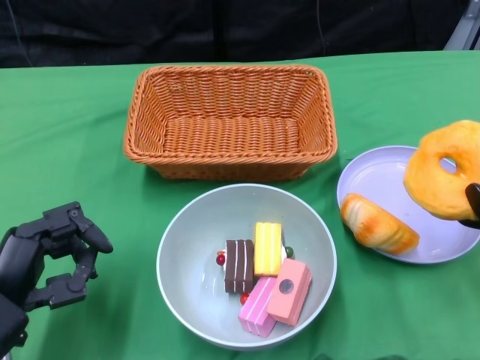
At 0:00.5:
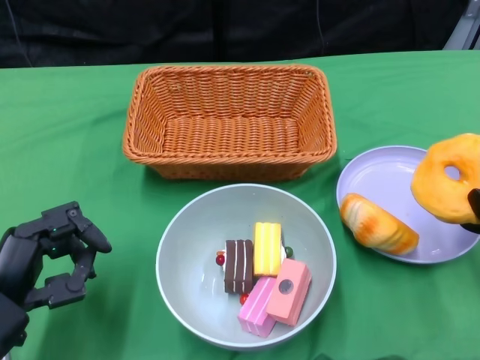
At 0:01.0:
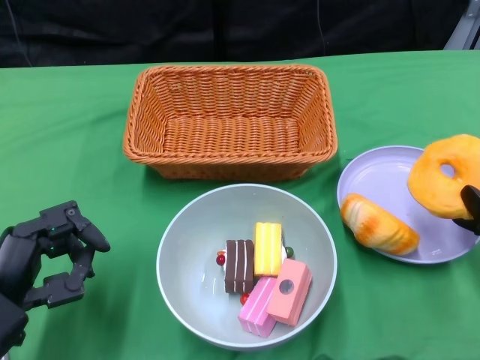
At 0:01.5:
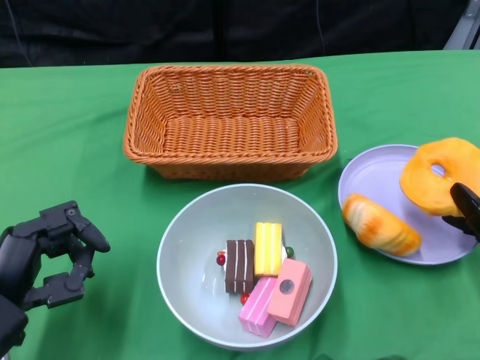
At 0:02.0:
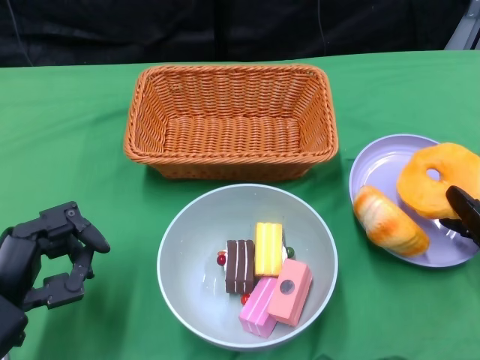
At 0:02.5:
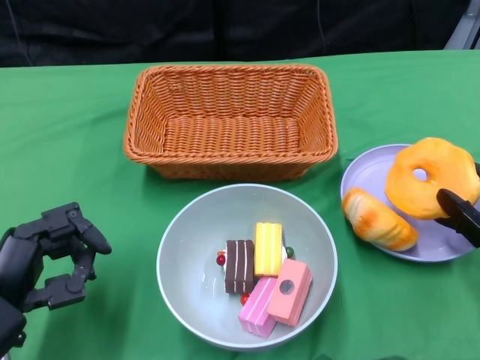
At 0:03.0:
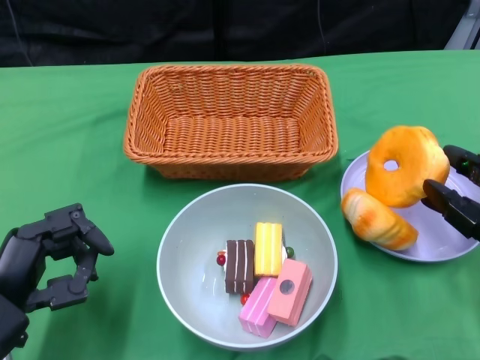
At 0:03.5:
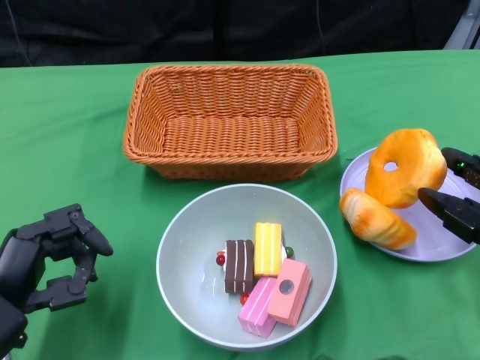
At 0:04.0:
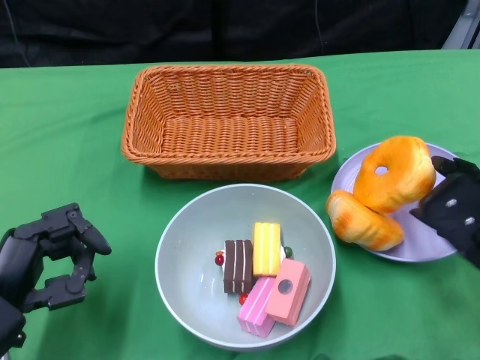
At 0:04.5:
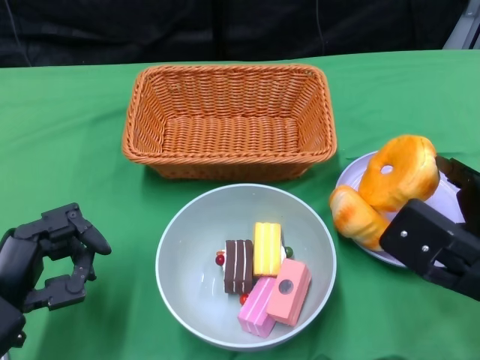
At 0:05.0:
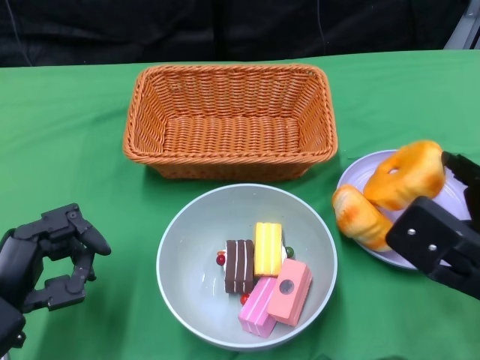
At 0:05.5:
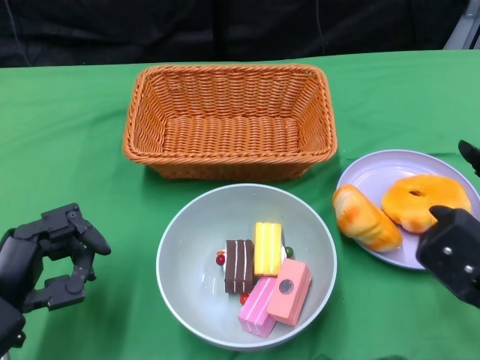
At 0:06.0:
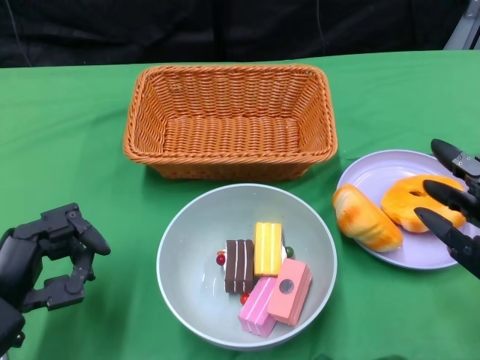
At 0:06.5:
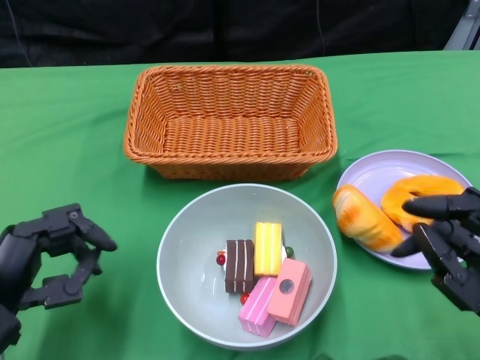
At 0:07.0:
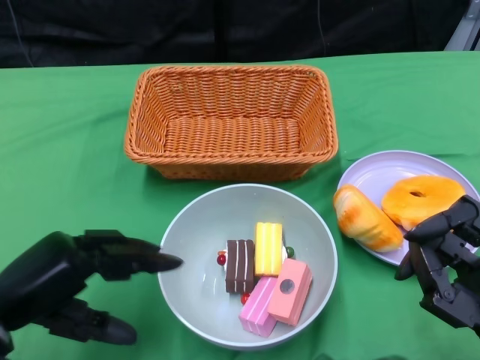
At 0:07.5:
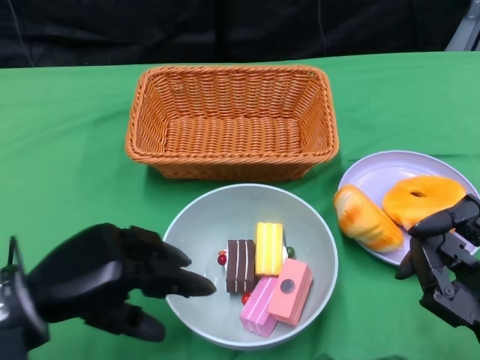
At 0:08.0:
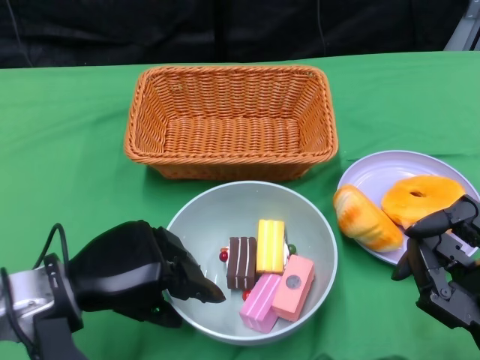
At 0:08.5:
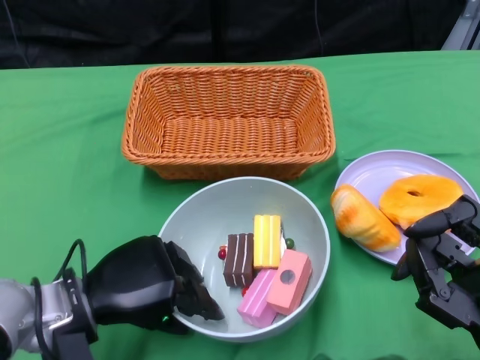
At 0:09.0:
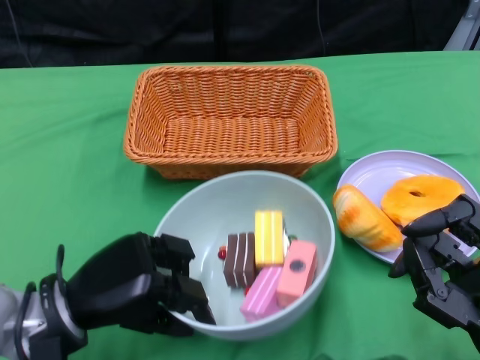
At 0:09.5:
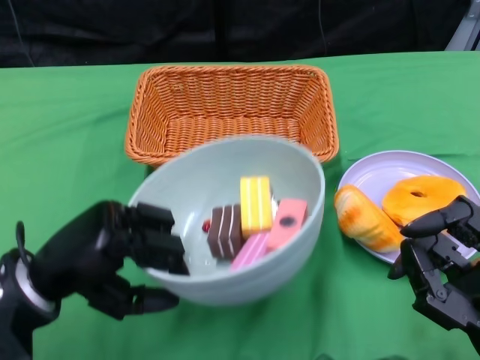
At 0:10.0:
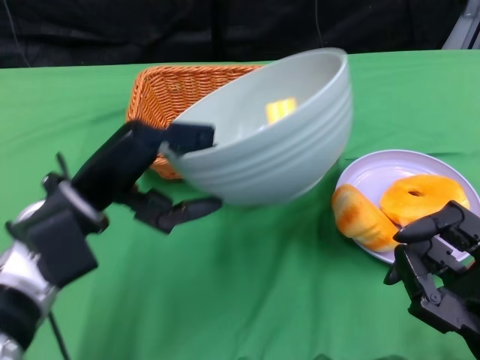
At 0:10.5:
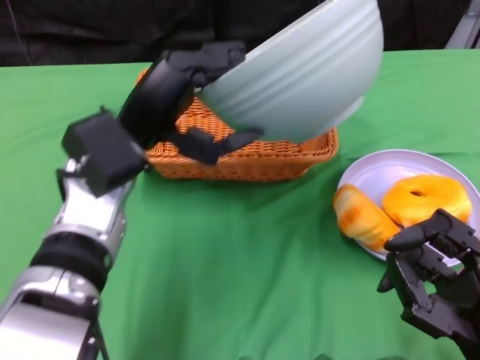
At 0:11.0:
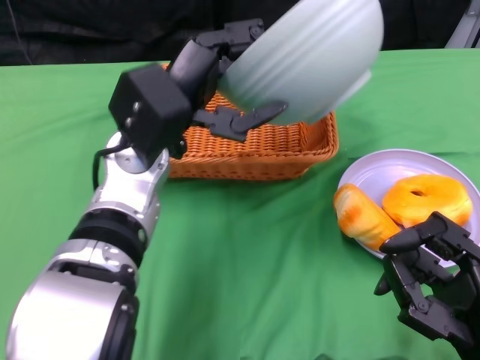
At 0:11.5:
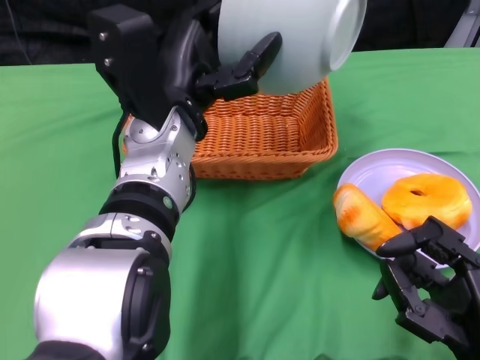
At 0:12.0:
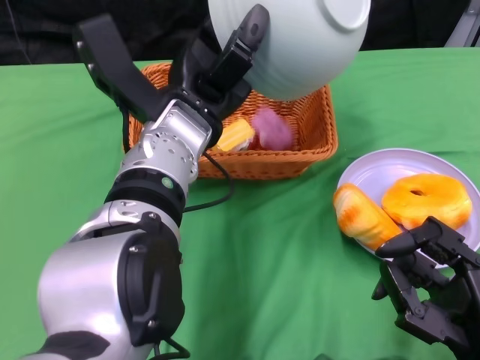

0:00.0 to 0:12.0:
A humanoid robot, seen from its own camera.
Step, 0:00.0 to 0:06.5: Pick up the bread with the right gripper and place it on the plate.
Step, 0:07.0 to 0:09.0: Grasp the bowl with the left gripper.
0:00.0 to 0:02.0: The right hand heads forward, covering approximately 5 cm.
0:02.0 to 0:04.0: The right hand shifts by about 5 cm.
0:04.0 to 0:06.0: The right hand moves backward, approximately 5 cm.
0:06.0 to 0:08.0: The left hand is displaced to the right by approximately 5 cm.
0:08.0 to 0:10.0: The left hand goes about 5 cm upward.
0:10.0 to 0:12.0: The left hand goes some 15 cm to the right and forward.

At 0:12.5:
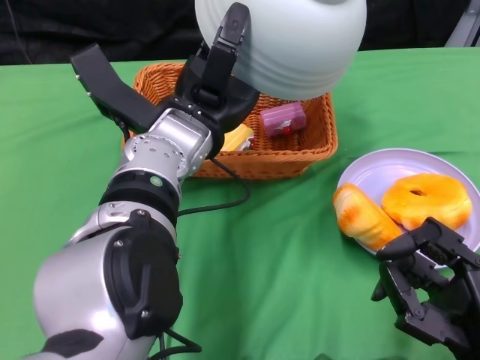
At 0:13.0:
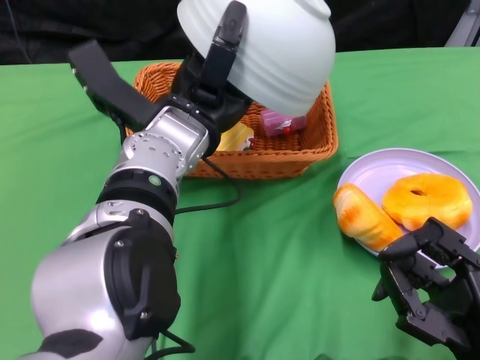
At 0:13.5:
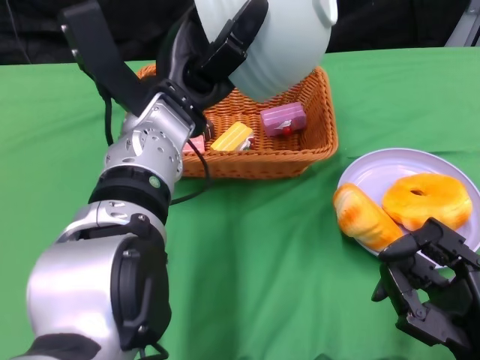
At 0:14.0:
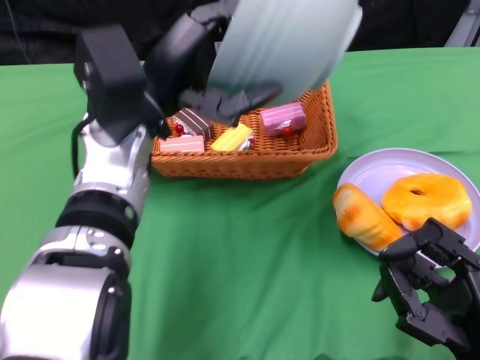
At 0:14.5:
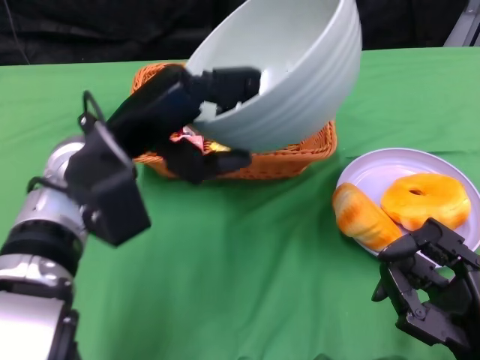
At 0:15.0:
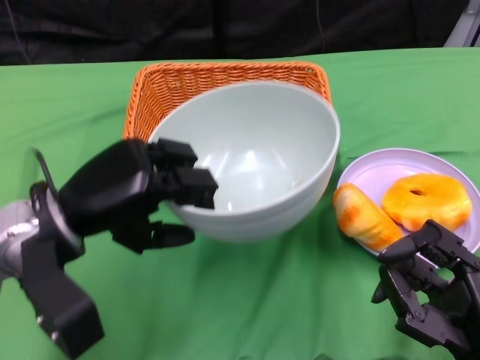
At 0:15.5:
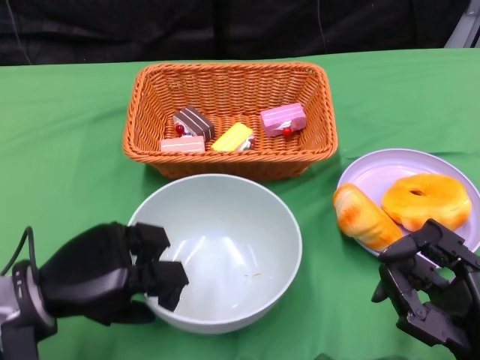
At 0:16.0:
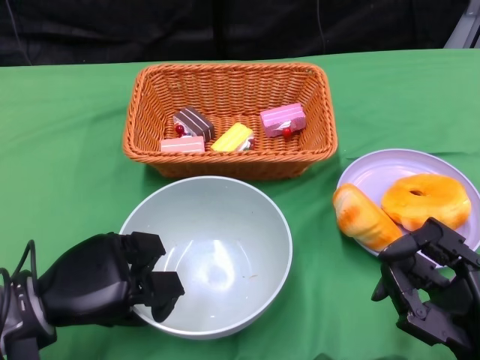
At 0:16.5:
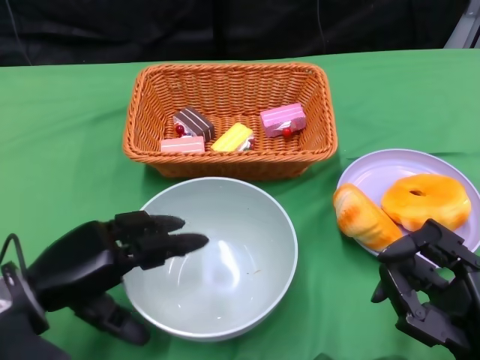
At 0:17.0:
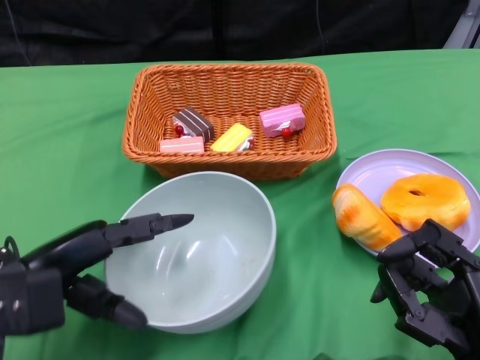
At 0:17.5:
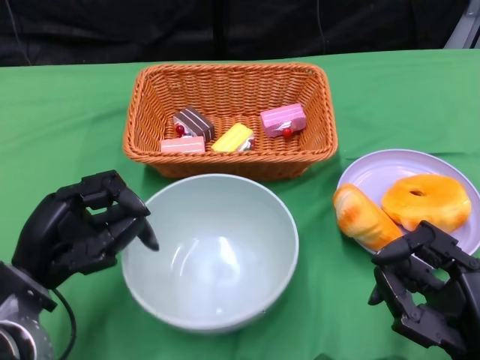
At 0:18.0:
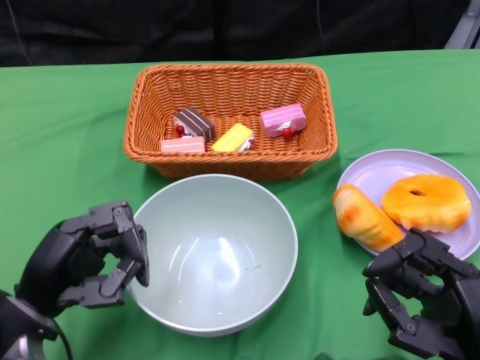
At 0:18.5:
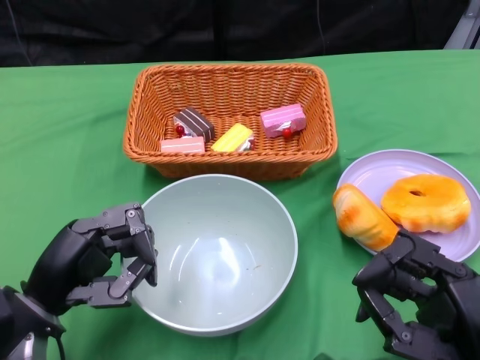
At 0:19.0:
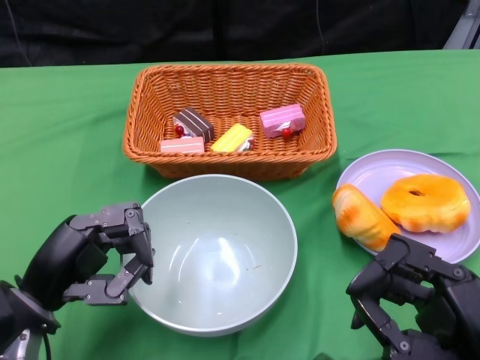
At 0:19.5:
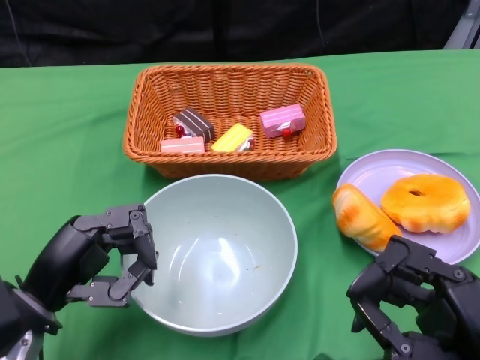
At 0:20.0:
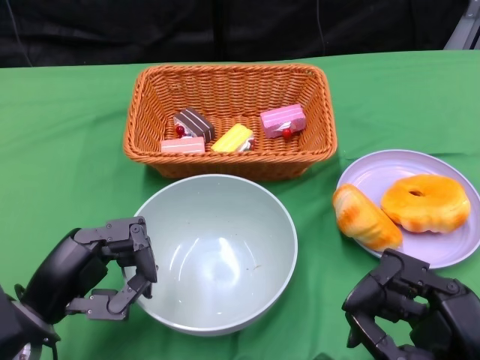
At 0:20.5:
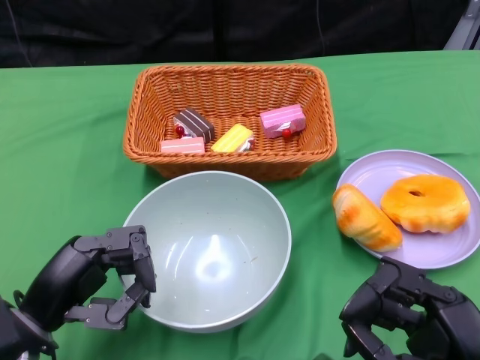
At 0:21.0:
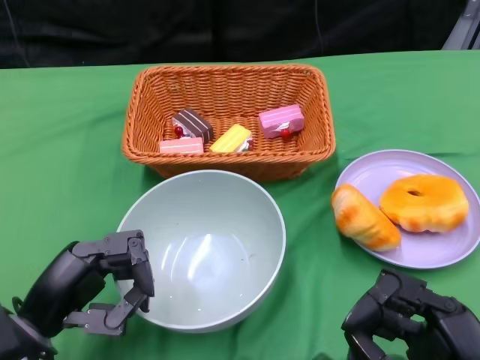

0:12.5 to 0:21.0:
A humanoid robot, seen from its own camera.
Step, 0:14.5 to 0:16.5: Place the bowl on the table with the left gripper.
0:12.5 to 0:14.5: The left hand heads to the left, covering approximately 10 cm.
0:14.5 to 0:16.5: The left hand goes about 15 cm downward, to the left and backward.
0:19.0 to 0:21.0: The hands move only a little.
